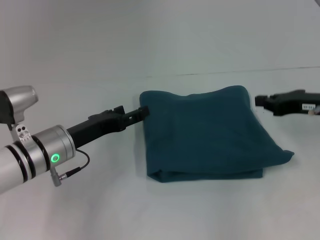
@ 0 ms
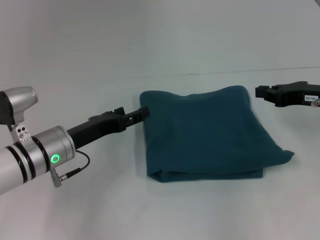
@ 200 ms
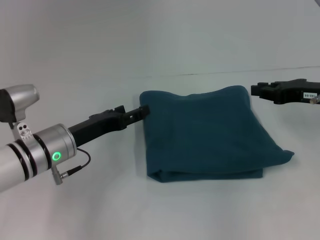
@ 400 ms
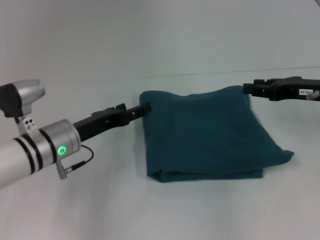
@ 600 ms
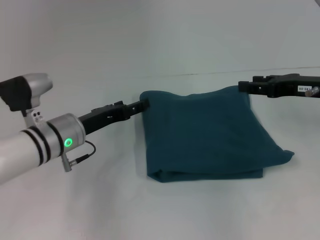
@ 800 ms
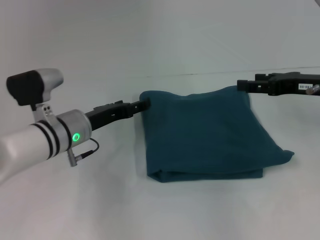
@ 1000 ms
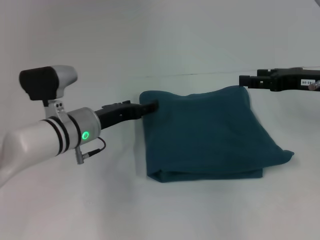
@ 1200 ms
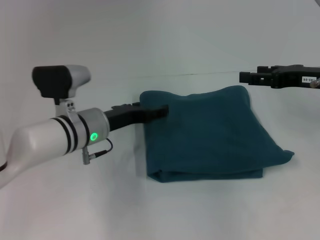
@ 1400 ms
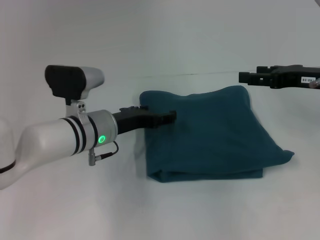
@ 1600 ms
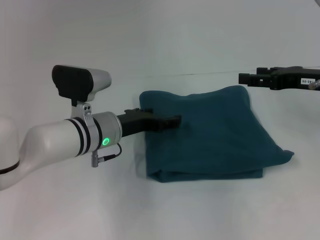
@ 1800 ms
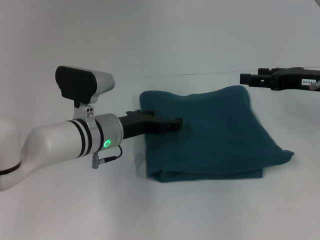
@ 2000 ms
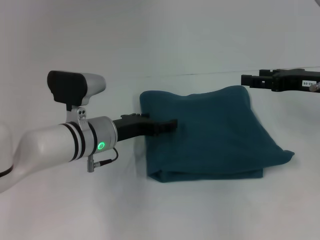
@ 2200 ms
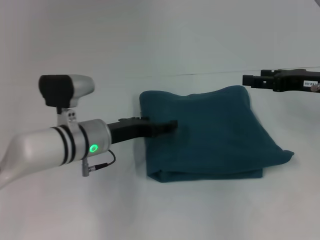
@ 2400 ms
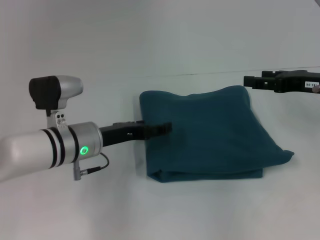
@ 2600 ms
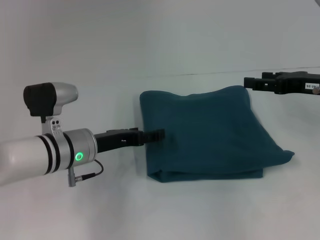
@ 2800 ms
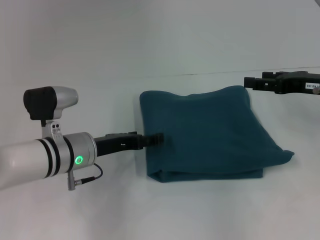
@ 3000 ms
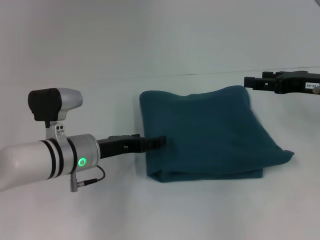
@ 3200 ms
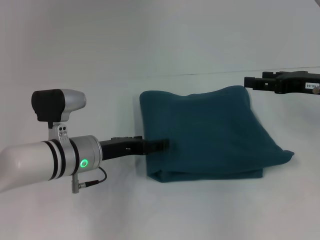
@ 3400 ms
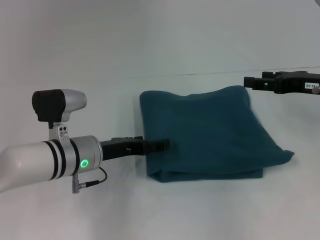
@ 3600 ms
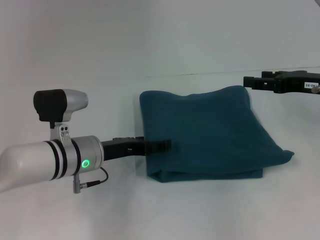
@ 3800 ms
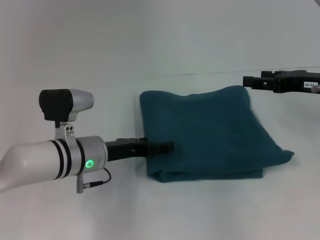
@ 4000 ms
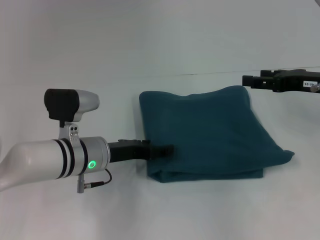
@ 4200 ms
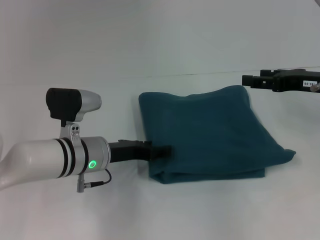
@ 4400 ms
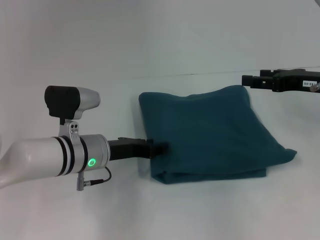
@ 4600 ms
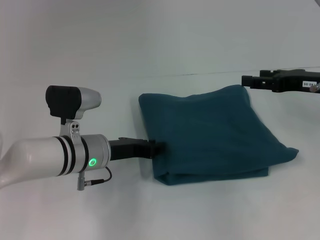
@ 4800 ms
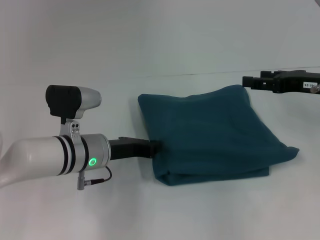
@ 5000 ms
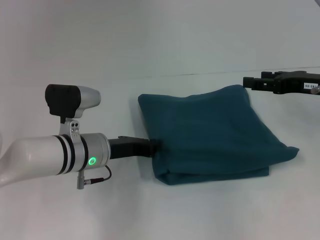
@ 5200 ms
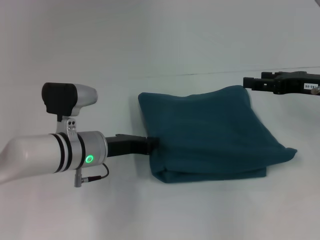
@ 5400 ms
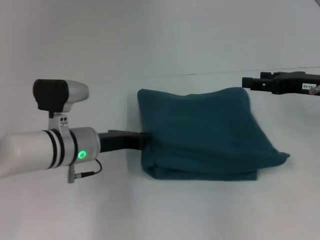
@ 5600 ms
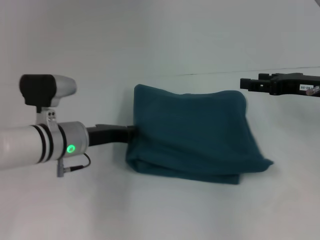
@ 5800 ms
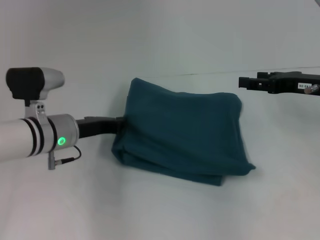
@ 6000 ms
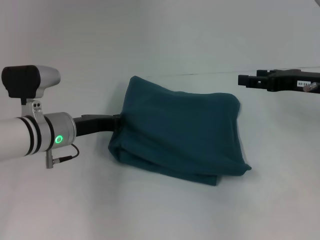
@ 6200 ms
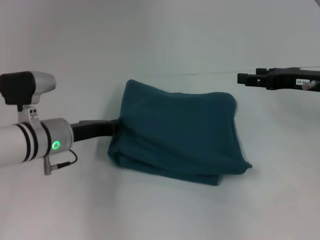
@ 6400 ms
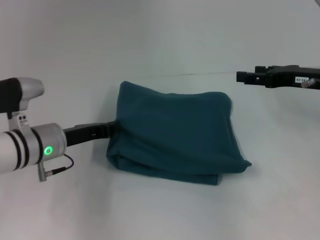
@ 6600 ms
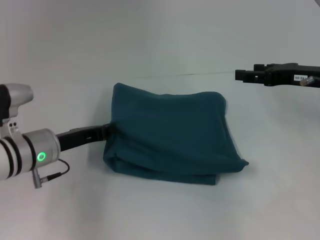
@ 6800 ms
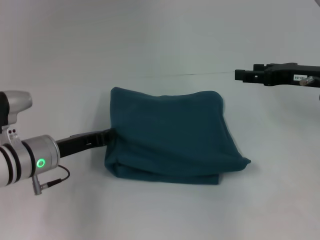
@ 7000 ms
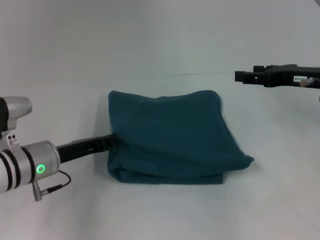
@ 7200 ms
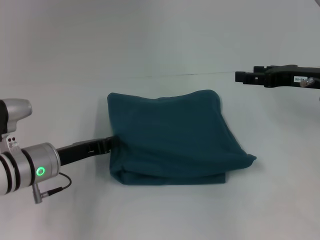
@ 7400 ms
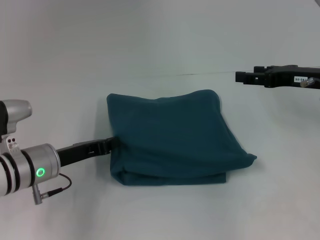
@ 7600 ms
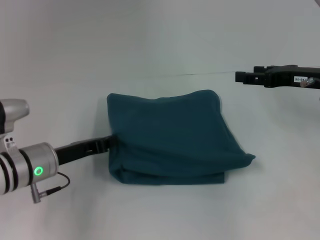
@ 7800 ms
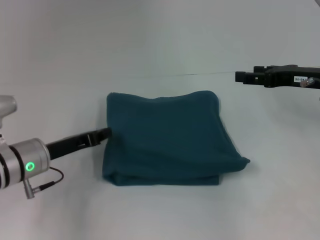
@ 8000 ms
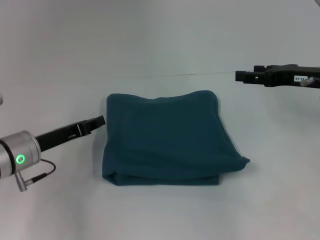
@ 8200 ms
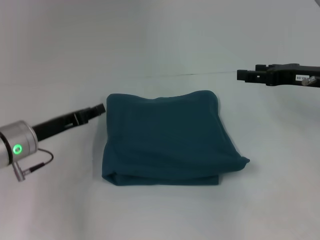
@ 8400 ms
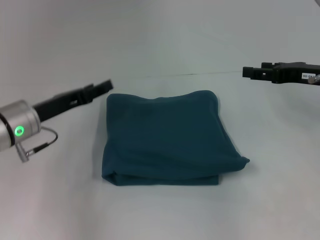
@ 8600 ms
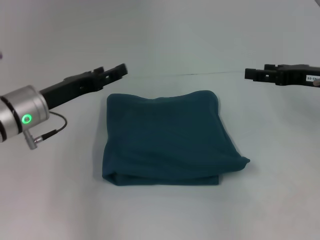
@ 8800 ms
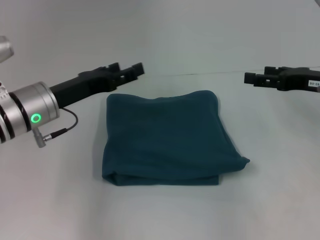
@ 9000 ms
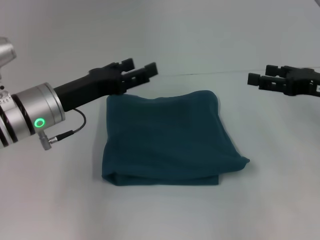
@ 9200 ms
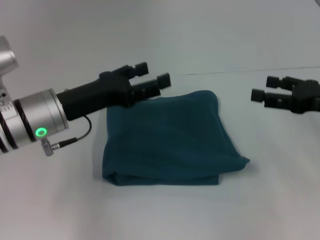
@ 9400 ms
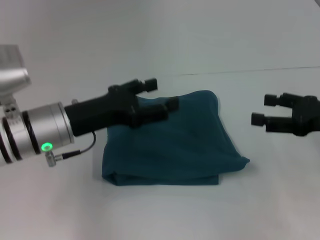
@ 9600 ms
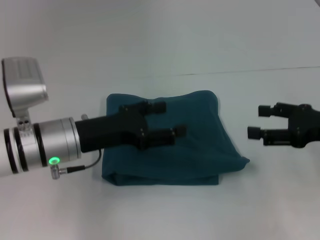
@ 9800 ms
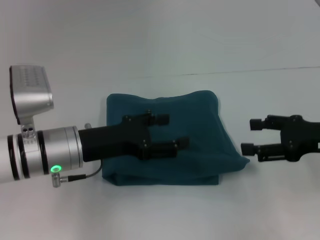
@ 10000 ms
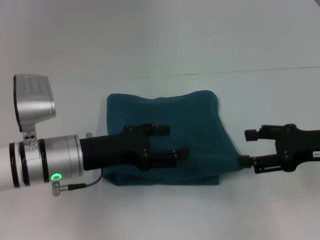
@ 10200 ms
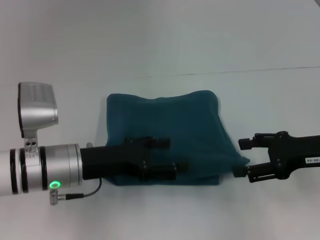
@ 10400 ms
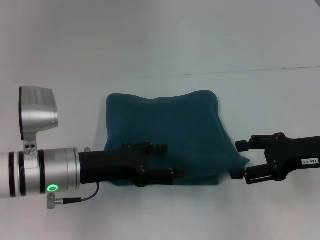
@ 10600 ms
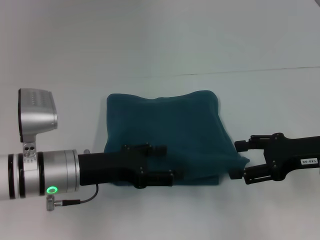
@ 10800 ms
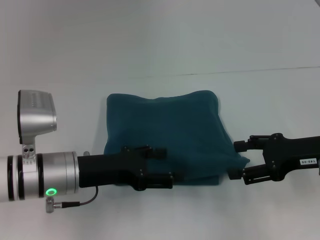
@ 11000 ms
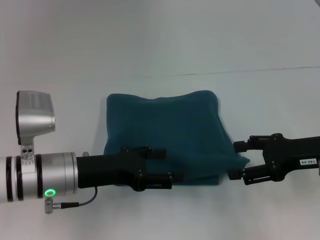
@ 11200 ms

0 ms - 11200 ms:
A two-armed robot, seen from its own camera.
0 ms - 1600 ms: The left gripper travels to the right by approximately 5 cm. Meanwhile the right gripper opens.
1600 ms - 3200 ms: The grippers make only small movements.
3200 ms - 4800 ms: The left gripper closes up.
4800 ms - 6400 ms: The left gripper shifts some 5 cm to the left, and closes up.
6400 ms - 8000 ms: The left gripper shifts by roughly 5 cm.
8000 ms - 9600 ms: The left gripper goes about 5 cm upward, and opens its fingers. Meanwhile the right gripper moves backward, about 10 cm.
9600 ms - 11200 ms: The left gripper shifts by some 5 cm.
